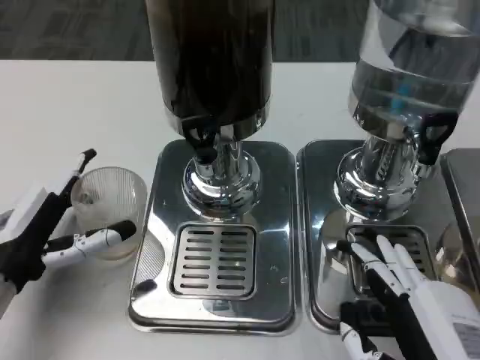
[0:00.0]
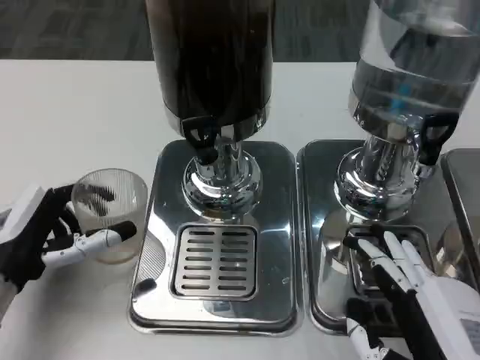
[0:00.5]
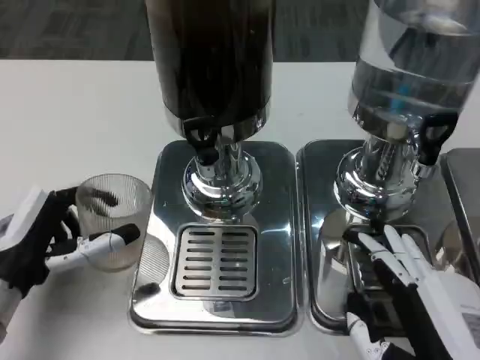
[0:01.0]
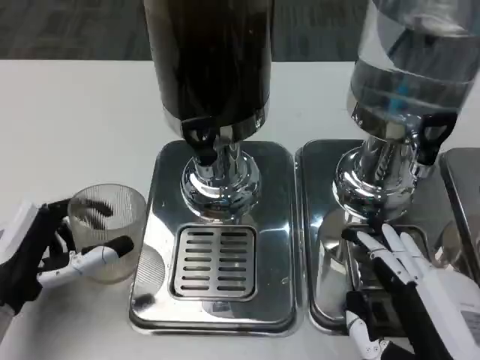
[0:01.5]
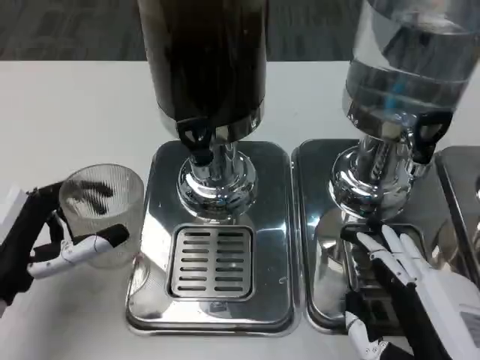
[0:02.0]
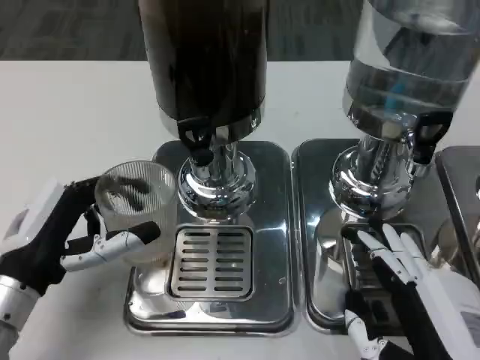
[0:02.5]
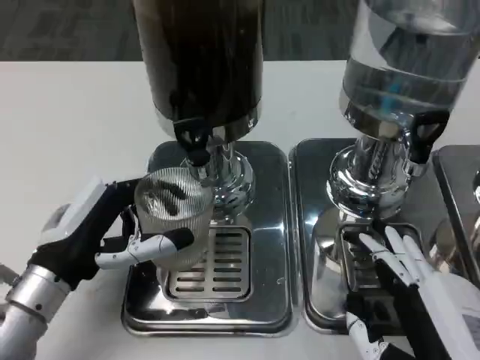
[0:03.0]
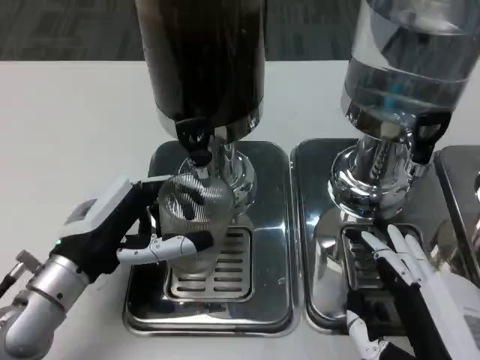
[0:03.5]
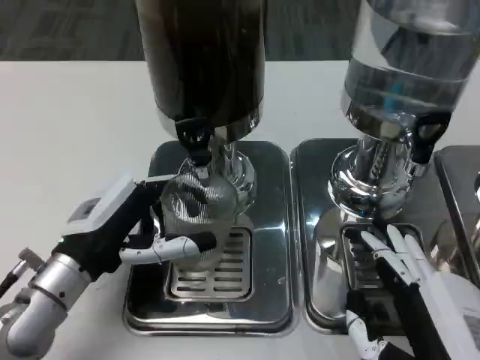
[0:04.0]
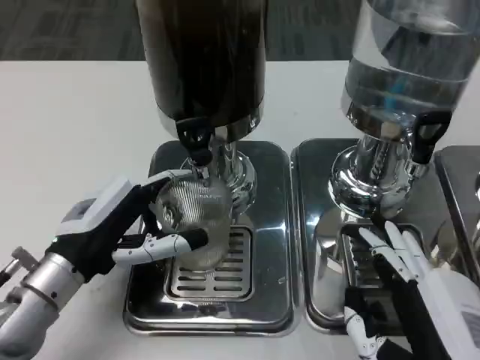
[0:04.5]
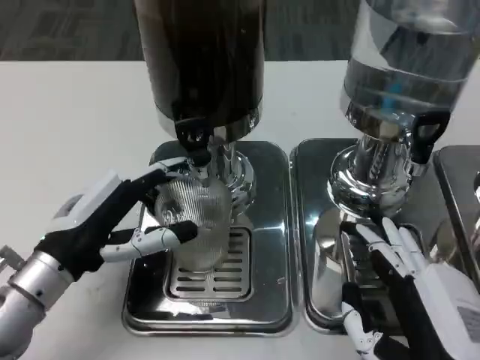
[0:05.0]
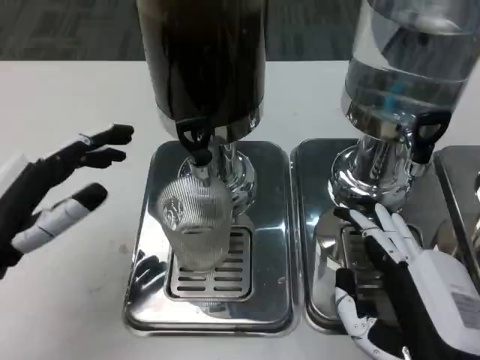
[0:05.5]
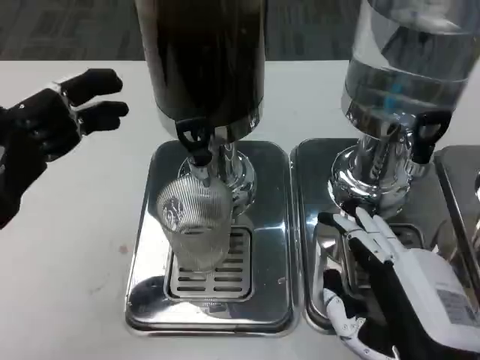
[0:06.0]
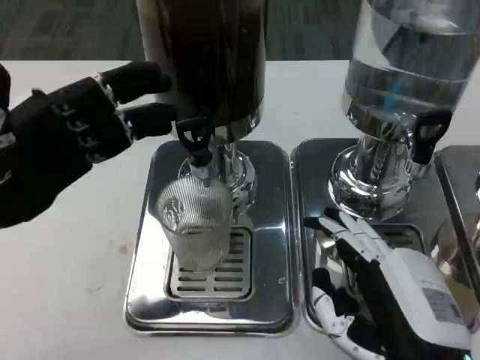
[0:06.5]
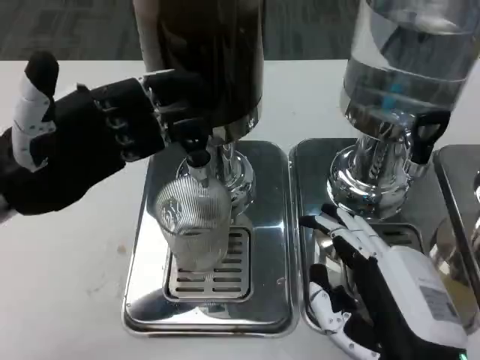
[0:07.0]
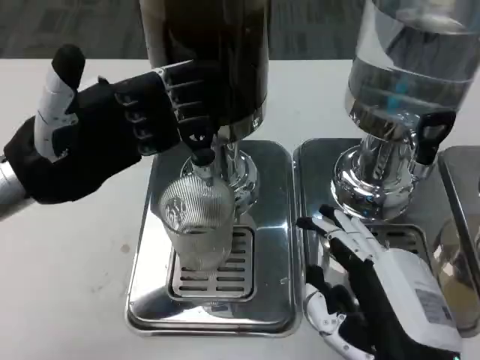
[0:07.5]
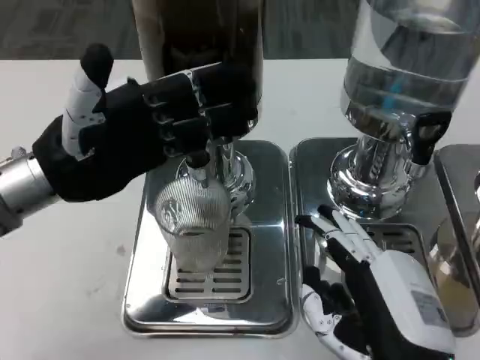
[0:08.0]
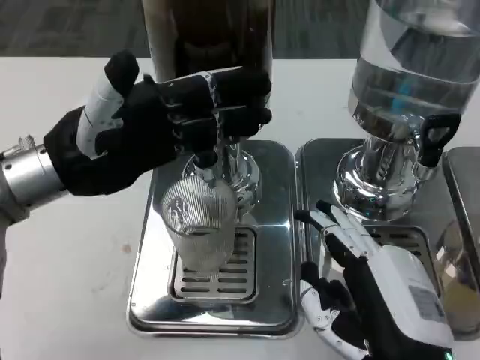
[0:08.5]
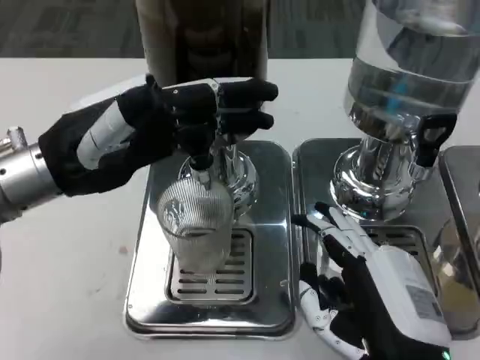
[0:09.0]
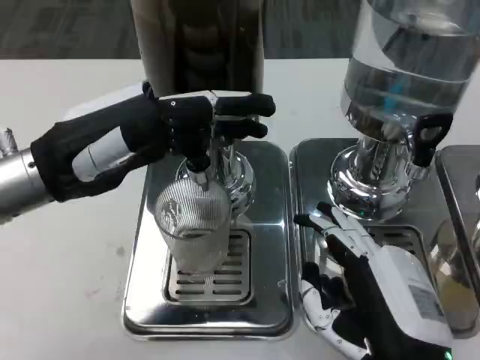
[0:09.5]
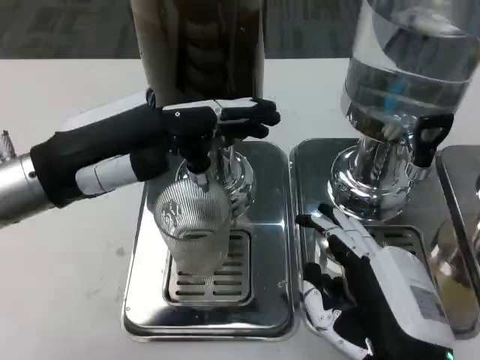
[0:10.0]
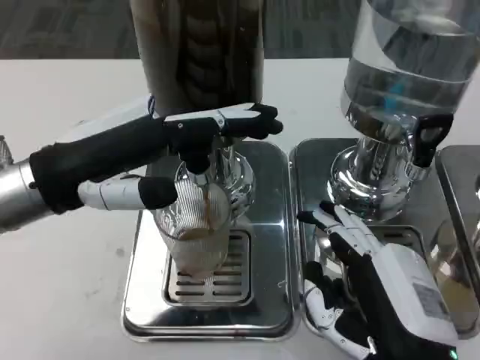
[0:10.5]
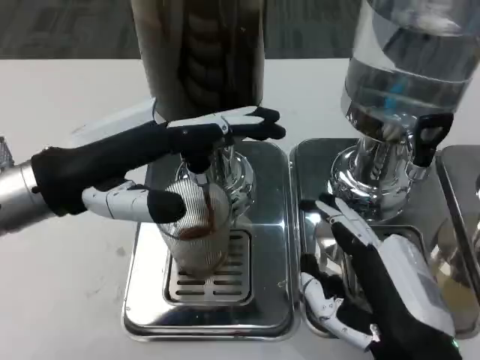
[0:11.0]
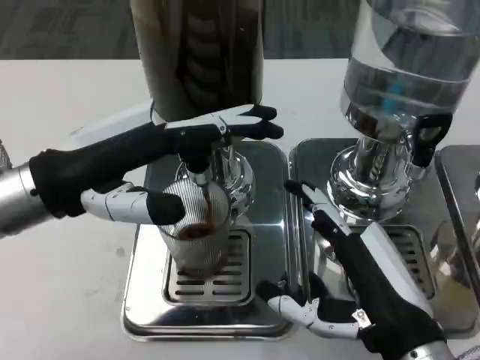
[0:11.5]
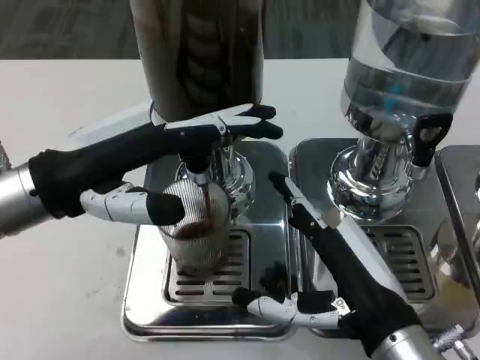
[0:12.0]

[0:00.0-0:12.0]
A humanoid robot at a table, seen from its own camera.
Task of the whole recording: Grasp the cup under the faucet to collect the drink, then remove the cup.
0:02.0 to 0:04.0: The left hand moves to the right, approximately 5 cm.
0:04.0 to 0:06.0: The left hand travels upward and to the left by about 10 cm.
0:06.0 to 0:08.0: The left hand heads forward and to the right, covering approximately 10 cm.

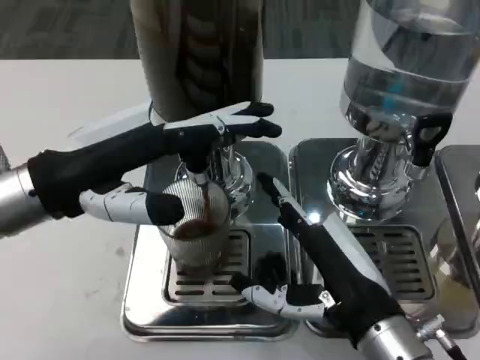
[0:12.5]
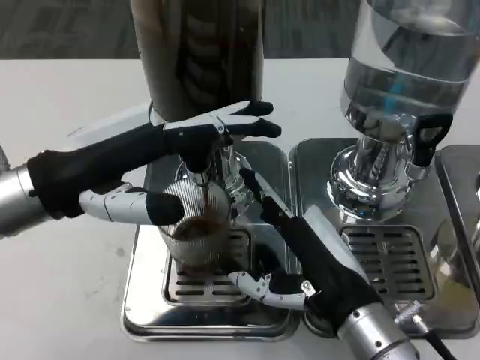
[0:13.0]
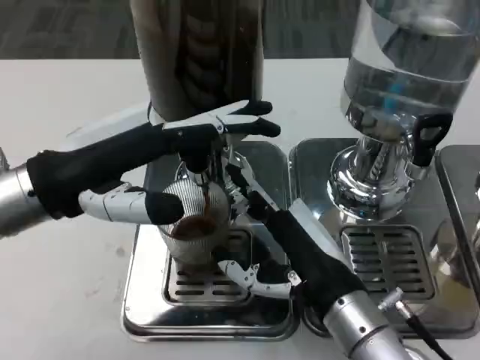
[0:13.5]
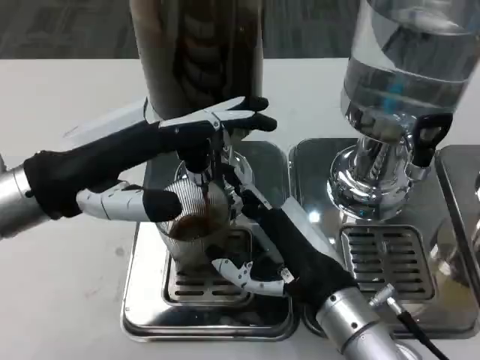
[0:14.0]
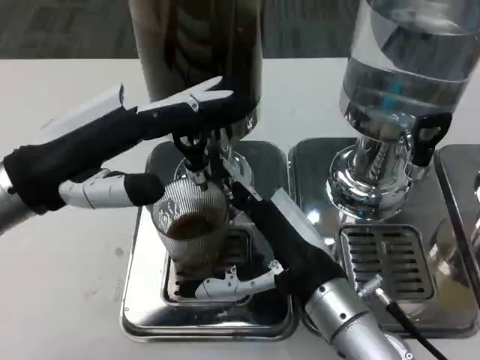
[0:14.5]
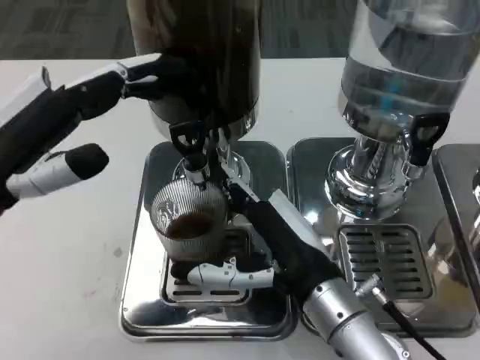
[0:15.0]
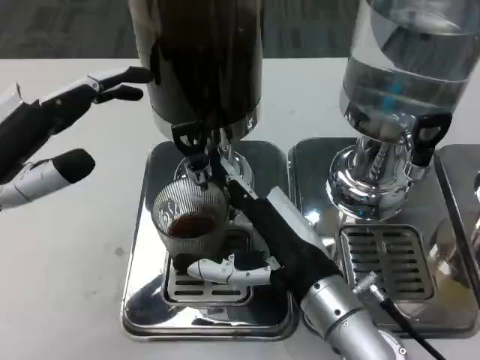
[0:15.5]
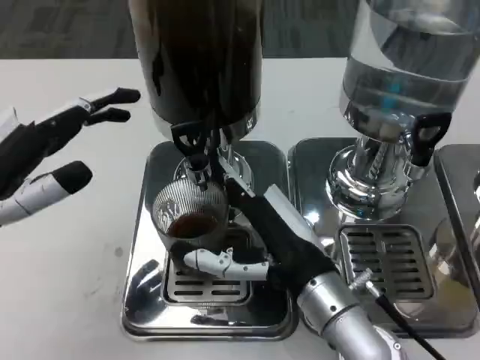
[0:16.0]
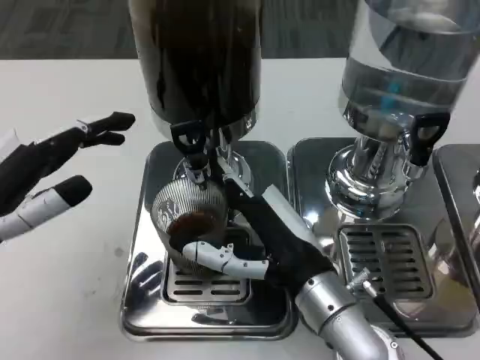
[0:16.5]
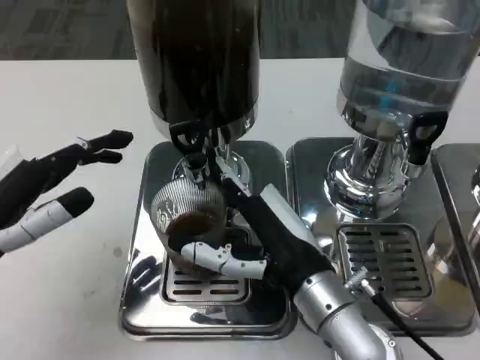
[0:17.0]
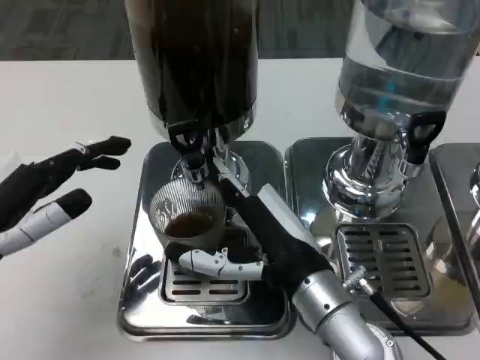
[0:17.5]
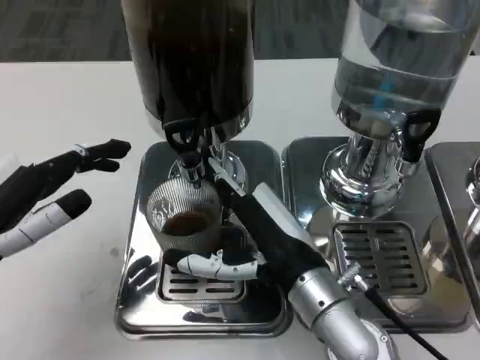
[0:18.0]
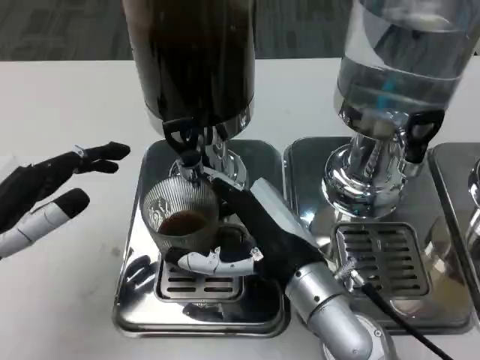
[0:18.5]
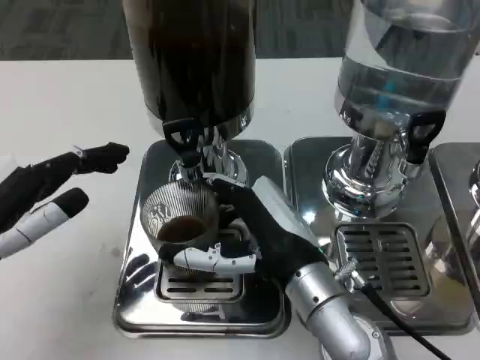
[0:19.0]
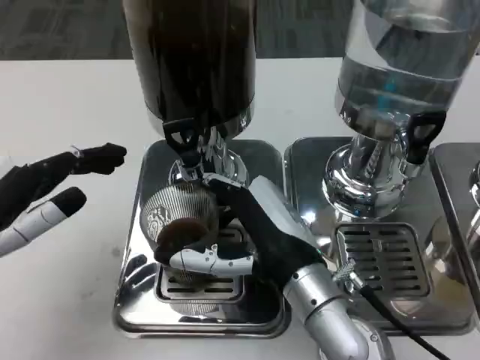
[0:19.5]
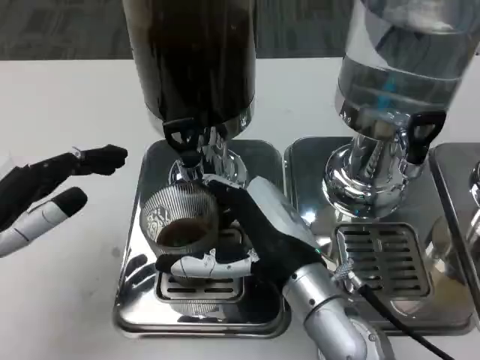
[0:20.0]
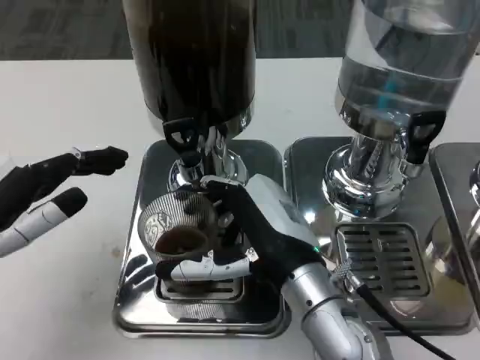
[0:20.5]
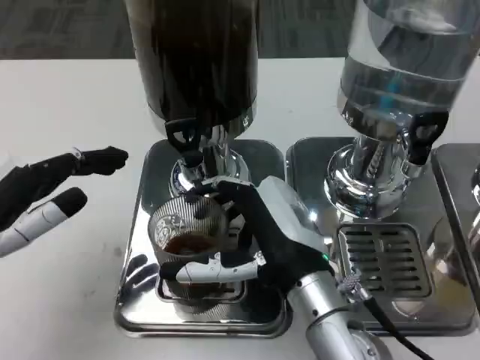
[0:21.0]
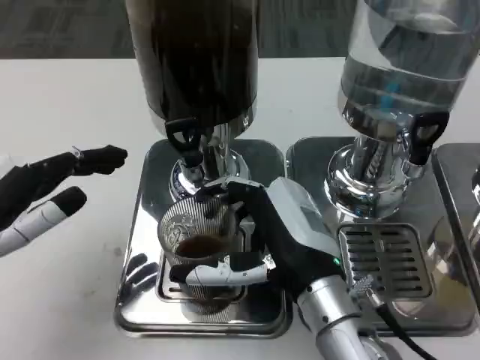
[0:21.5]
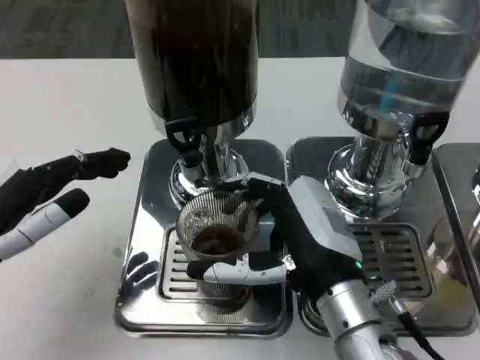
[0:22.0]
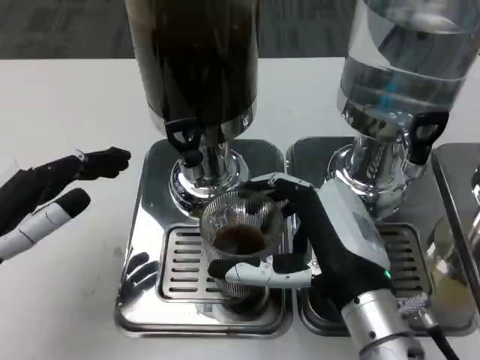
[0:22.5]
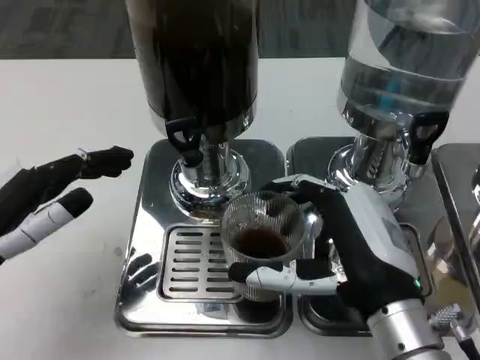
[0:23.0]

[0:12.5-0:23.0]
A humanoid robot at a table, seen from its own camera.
Task of the whole recording: Grasp the cup under the faucet to collect the drink, then remove the cup.
0:12.5 to 0:14.5: The right hand shifts by about 5 cm.
0:14.5 to 0:16.5: The left hand shifts by some 10 cm.
0:19.0 to 0:21.0: The hands make only small movements.
0:21.0 to 0:23.0: The right hand is displaced to the right by some 5 cm.

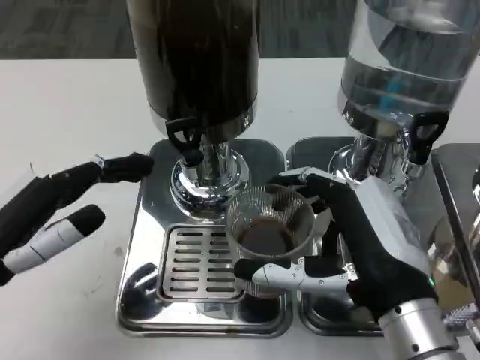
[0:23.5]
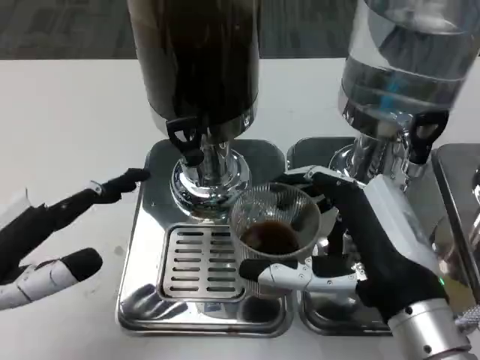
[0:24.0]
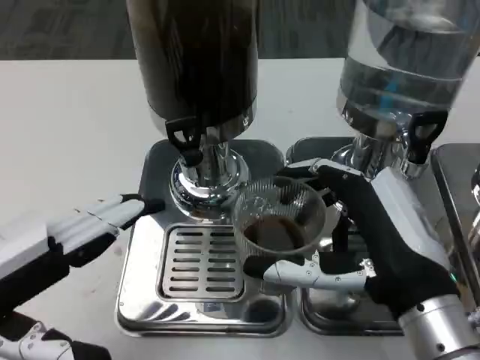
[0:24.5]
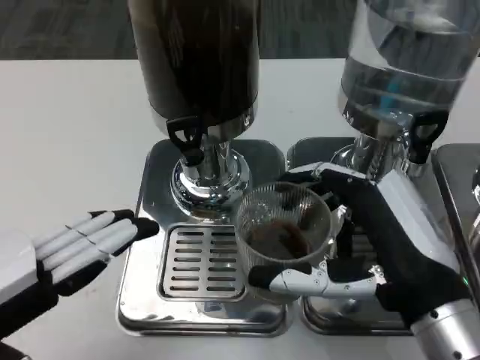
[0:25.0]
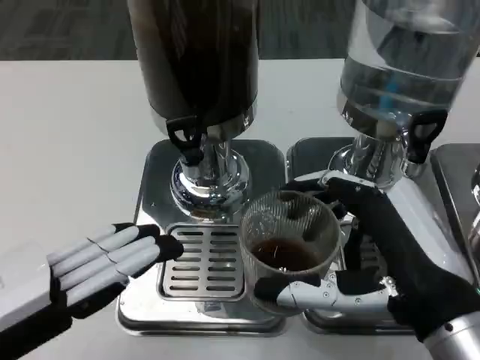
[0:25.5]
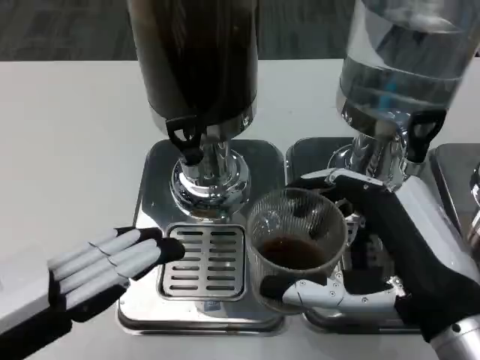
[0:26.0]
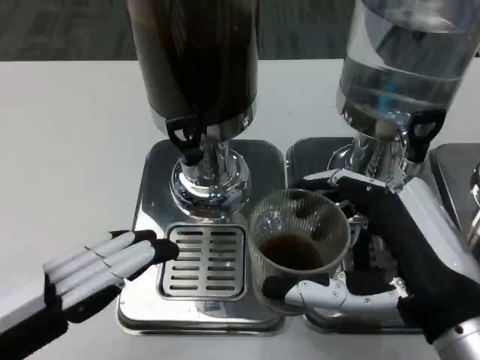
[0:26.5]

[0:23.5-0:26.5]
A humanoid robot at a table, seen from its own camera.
Task of the whole recording: Grasp the cup under the faucet to collect the drink, then remove the cup.
0:23.5 to 0:25.0: The left hand moves backward, approximately 5 cm.
